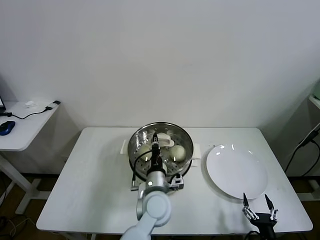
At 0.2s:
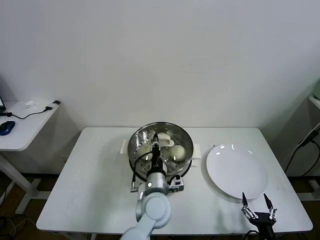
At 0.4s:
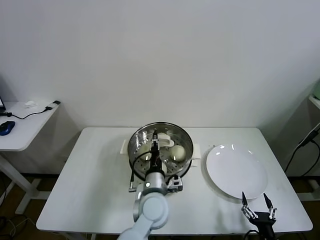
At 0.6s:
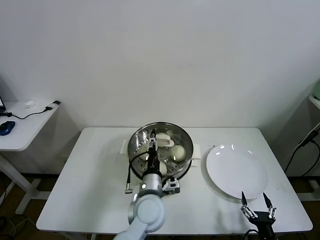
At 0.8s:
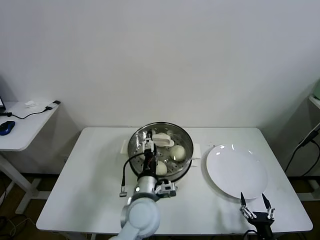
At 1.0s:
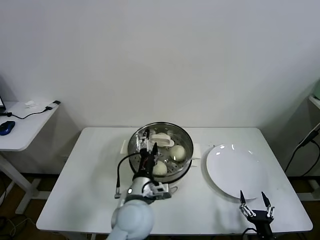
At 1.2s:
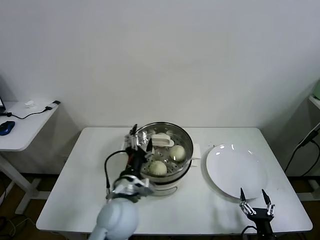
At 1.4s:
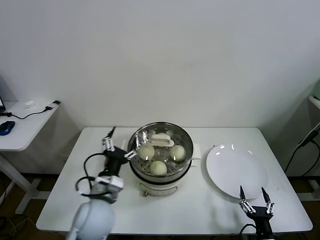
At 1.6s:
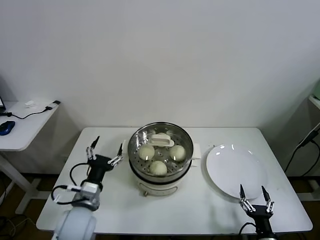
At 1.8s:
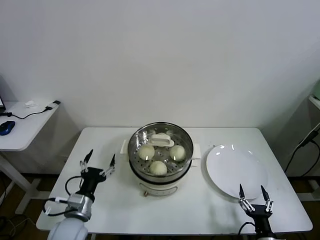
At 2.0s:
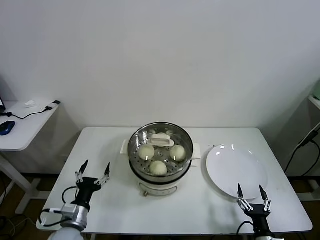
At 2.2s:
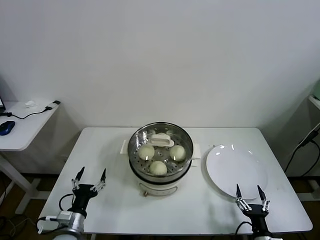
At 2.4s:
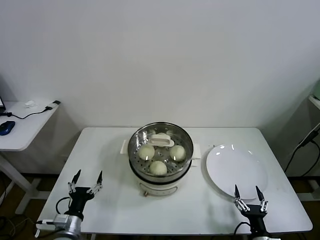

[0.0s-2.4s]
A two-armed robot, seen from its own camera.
Task of the whole recording: take steamed baozi put them in steamer.
0.0s to 1.2s: The left gripper shifts roughly 10 cm to the left and upward, and opens.
1.2s to 2.4s: The left gripper heads to the left and downward, covering some 25 cm.

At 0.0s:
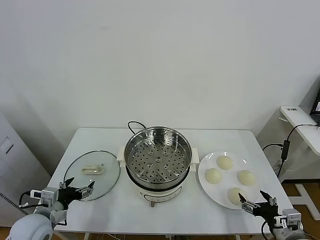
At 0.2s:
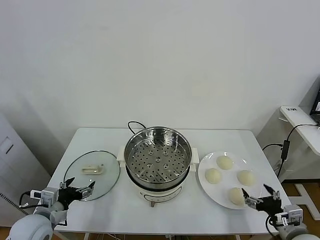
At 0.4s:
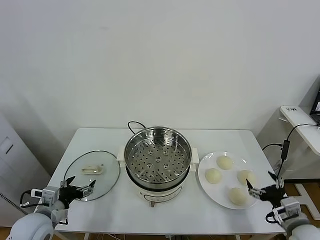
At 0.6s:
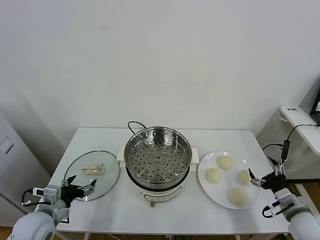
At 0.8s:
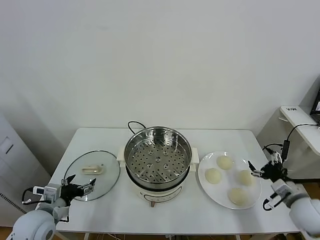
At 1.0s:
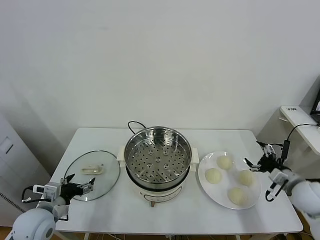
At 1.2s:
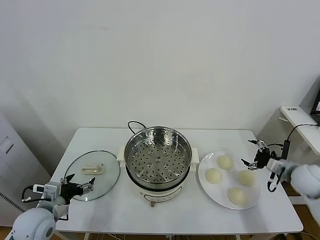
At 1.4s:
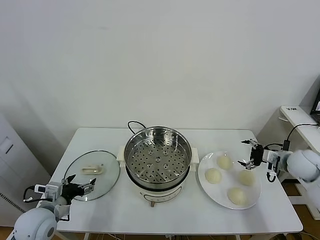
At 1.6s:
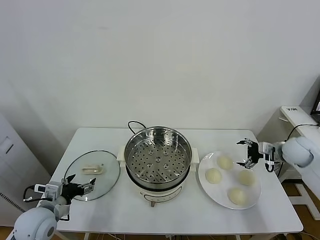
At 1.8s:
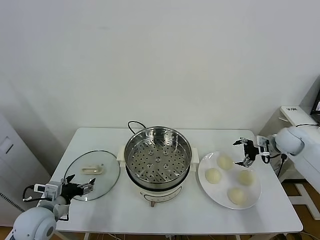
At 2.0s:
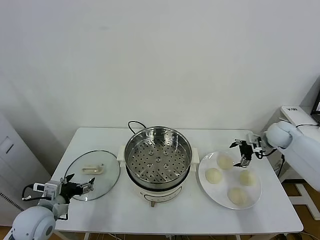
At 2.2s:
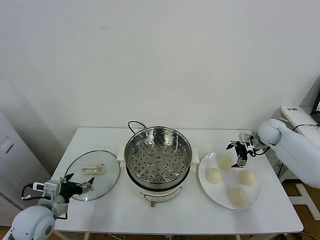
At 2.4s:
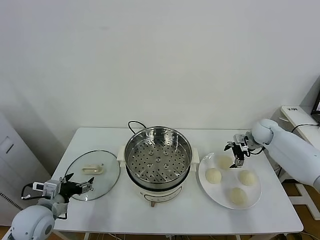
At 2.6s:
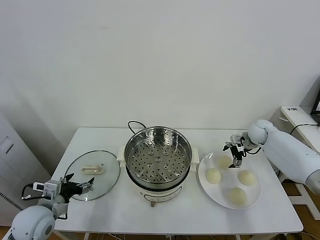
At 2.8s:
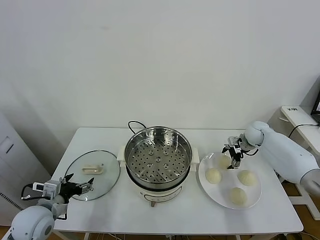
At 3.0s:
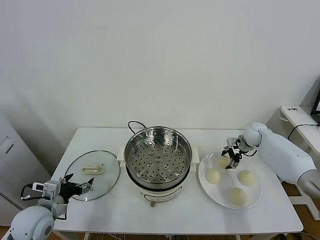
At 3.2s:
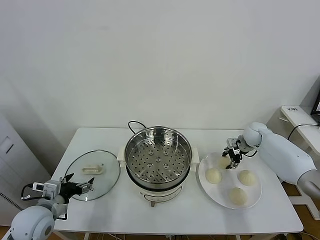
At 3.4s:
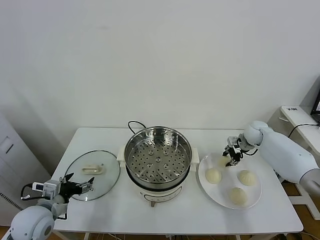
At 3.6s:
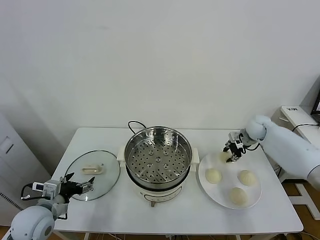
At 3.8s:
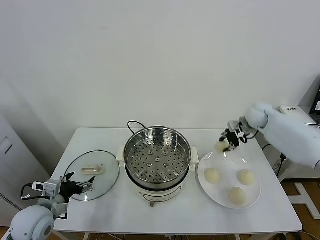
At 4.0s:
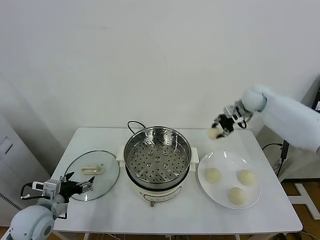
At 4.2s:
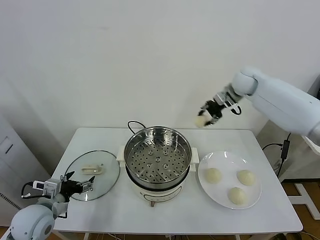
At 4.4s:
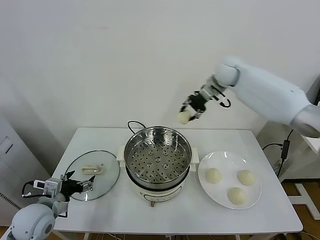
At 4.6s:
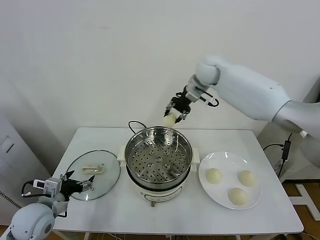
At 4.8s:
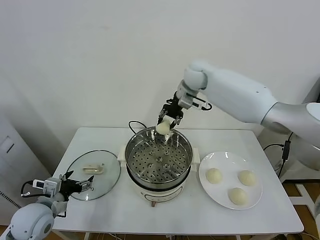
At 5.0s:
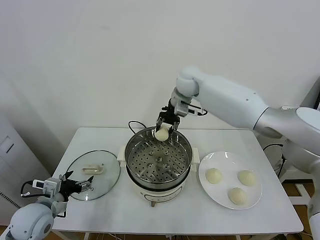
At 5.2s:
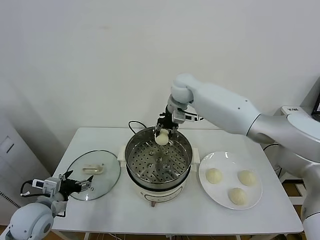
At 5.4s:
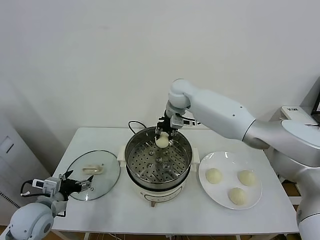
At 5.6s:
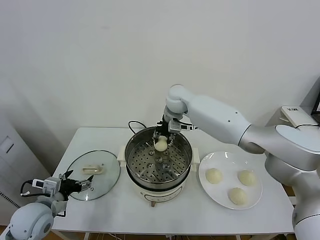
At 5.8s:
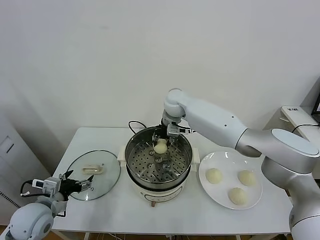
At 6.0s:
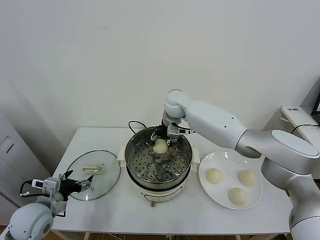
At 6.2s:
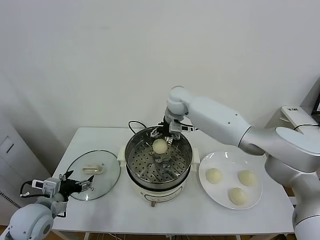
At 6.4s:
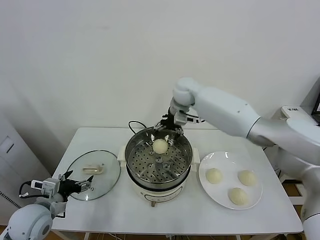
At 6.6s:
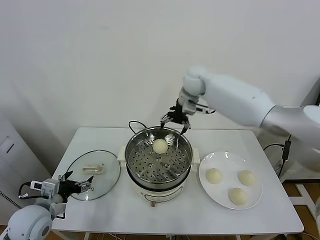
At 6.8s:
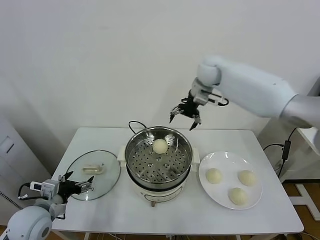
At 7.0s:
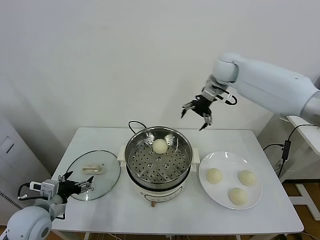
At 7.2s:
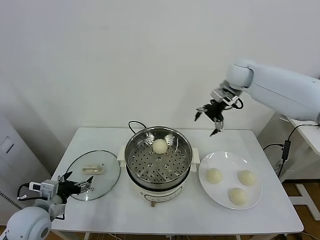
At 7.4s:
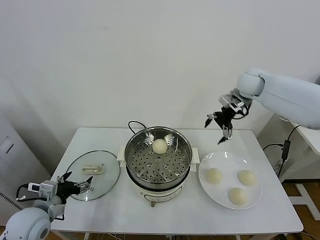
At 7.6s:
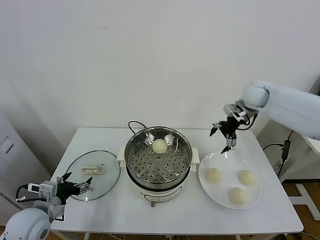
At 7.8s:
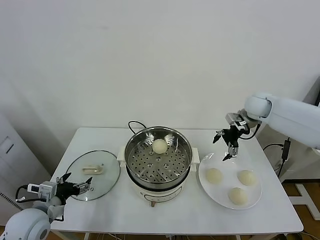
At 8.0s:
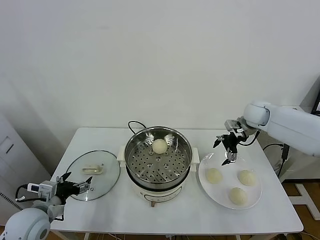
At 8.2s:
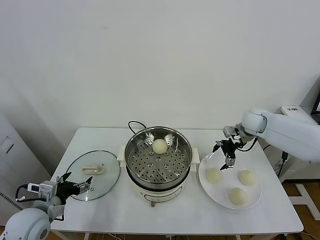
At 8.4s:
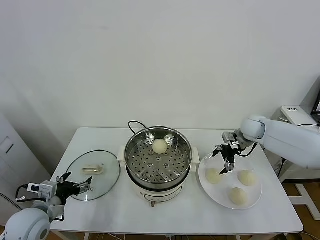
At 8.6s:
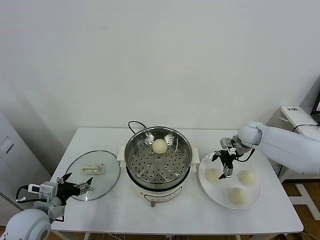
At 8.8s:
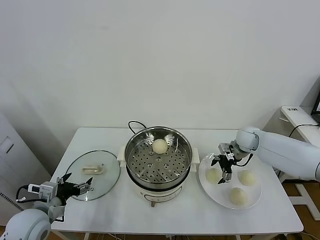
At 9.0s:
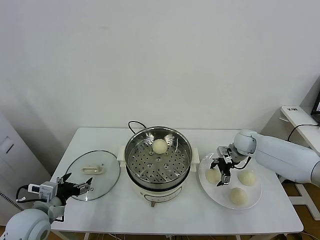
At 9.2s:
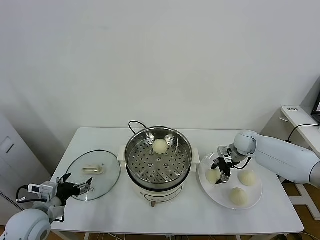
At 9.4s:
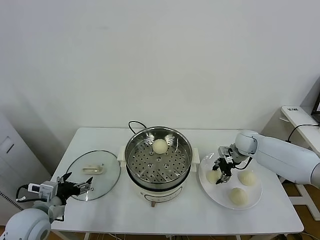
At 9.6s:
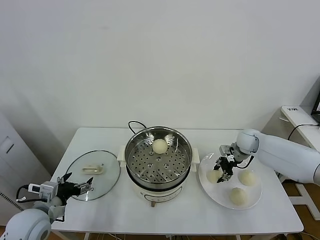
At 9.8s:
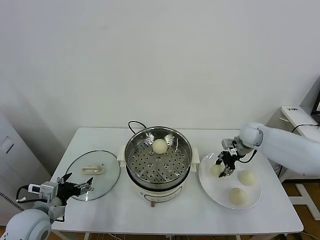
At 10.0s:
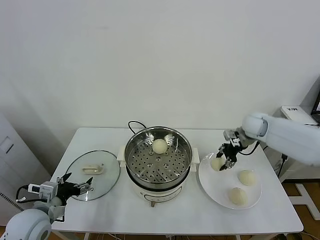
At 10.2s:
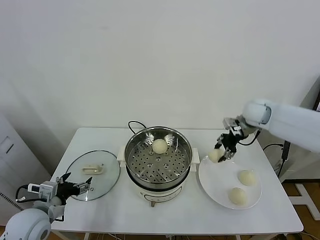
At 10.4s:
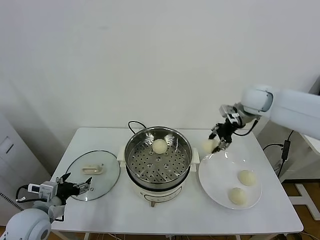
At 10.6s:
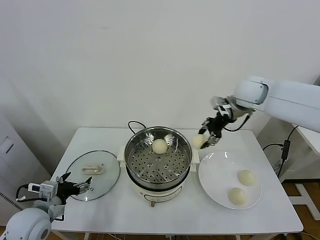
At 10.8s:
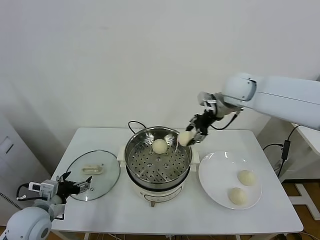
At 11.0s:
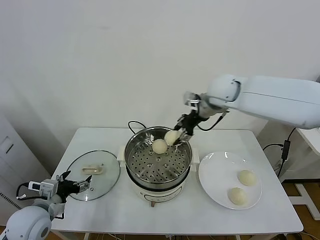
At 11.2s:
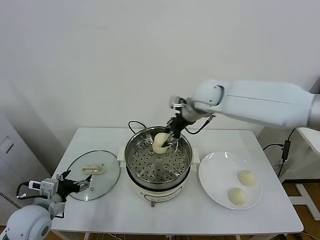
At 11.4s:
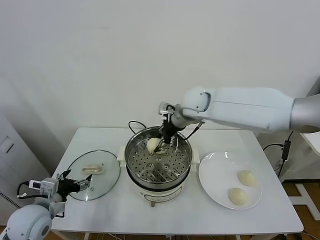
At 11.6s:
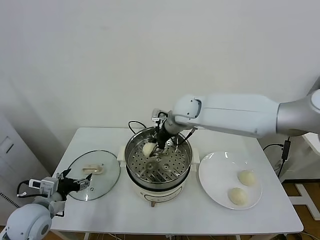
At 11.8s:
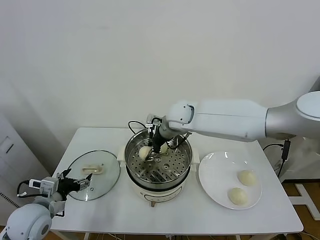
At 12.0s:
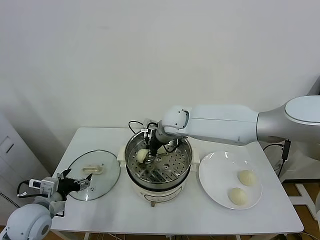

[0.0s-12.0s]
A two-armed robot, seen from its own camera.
Task of the whole recording: take steamed baozi put them in steamer.
Step, 0.0s to 3.0s: Grasp the baozi in the plate with right gripper.
Step, 3.2s to 6.0s: Place the baozi on the steamer with right gripper.
Step, 6.4s to 9.2s: Grasp the baozi in the plate with right gripper.
1.6s to 3.0s: The right gripper travels forward, to the left and downward by about 15 cm, and closes its fingers.
3.0s to 4.4s: The right gripper heads upward and to the left, covering about 35 cm.
4.4s to 6.0s: The right gripper heads to the left and downward, covering approximately 15 cm, and opens its fingers.
6.0s to 7.6s: The right gripper moves to the right, roughly 30 cm.
7.6s to 9.0s: The right gripper travels downward by roughly 20 cm.
9.0s to 10.4s: The right gripper is displaced upward by roughly 20 cm, and closes its fingers.
10.4s to 12.0s: The right gripper shifts some 25 cm to the left.

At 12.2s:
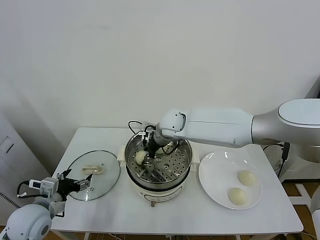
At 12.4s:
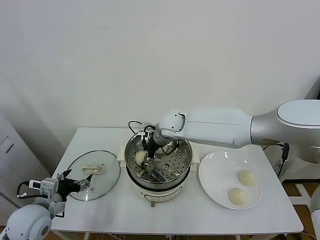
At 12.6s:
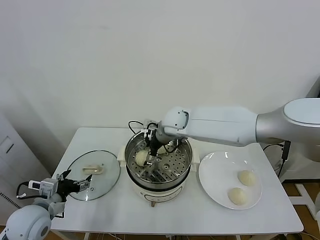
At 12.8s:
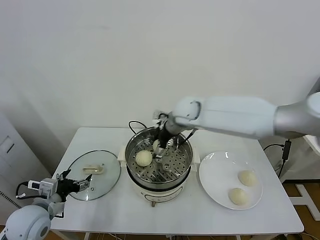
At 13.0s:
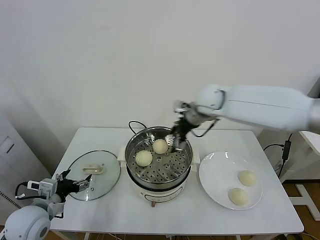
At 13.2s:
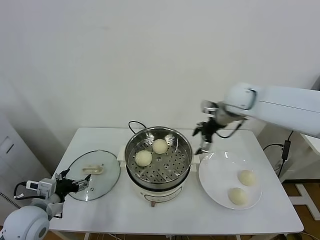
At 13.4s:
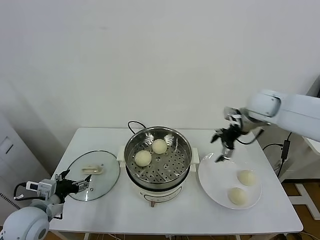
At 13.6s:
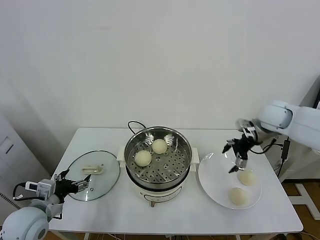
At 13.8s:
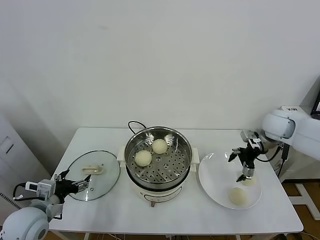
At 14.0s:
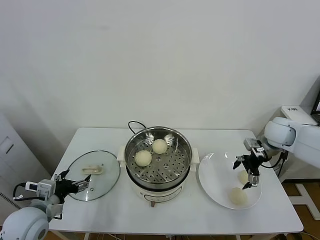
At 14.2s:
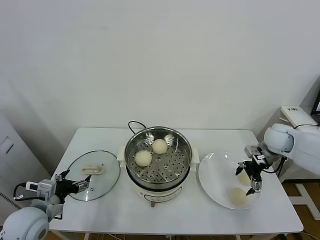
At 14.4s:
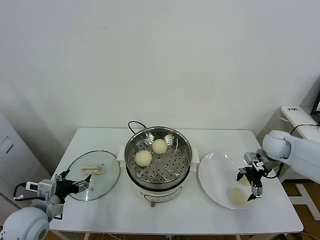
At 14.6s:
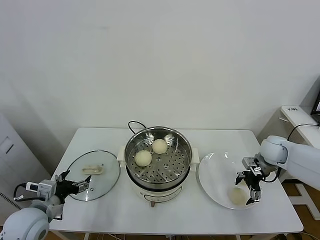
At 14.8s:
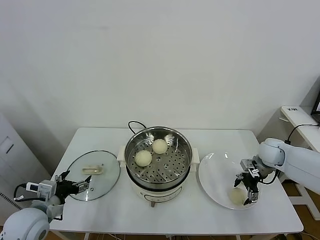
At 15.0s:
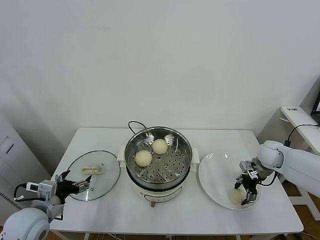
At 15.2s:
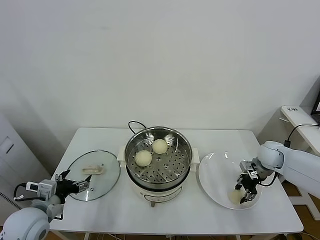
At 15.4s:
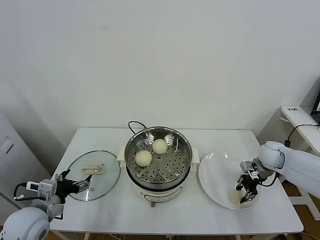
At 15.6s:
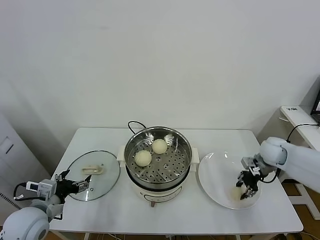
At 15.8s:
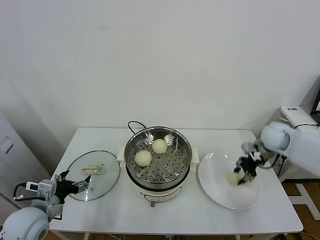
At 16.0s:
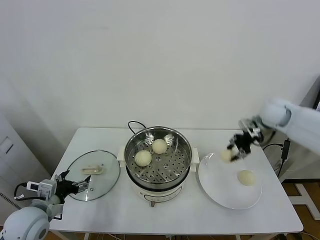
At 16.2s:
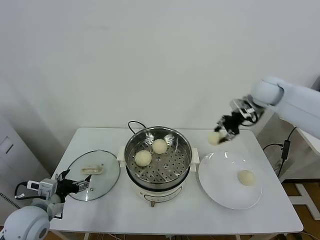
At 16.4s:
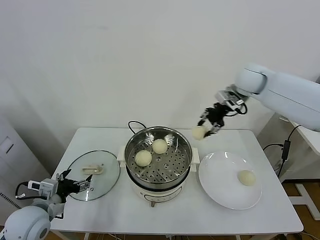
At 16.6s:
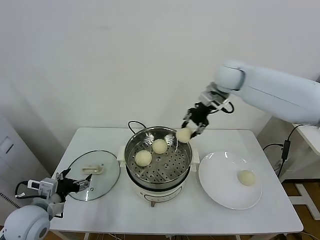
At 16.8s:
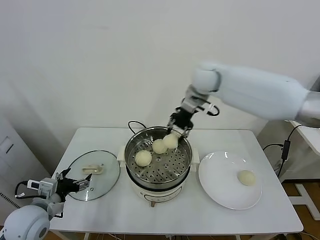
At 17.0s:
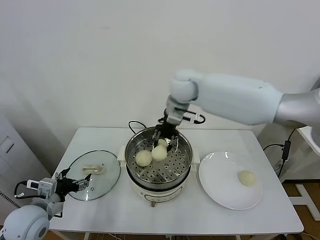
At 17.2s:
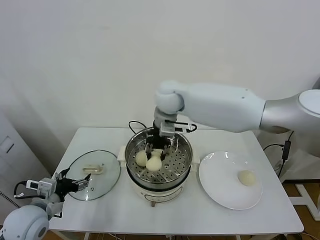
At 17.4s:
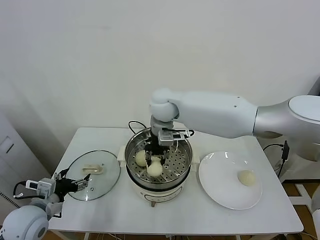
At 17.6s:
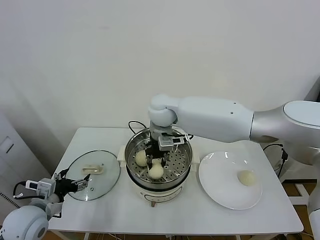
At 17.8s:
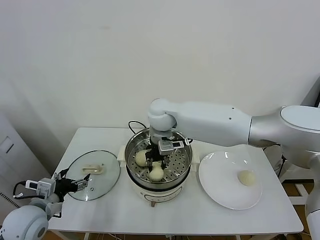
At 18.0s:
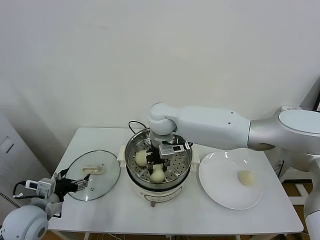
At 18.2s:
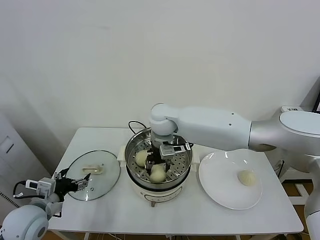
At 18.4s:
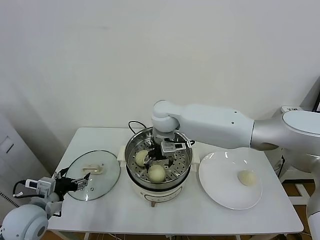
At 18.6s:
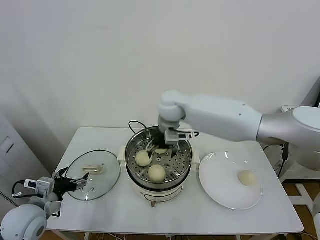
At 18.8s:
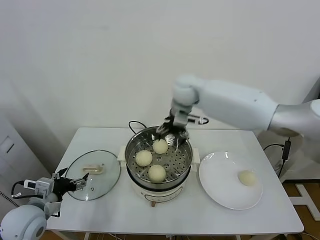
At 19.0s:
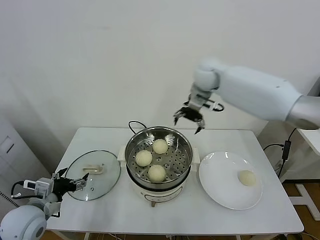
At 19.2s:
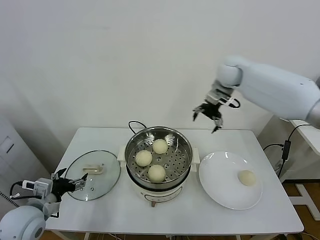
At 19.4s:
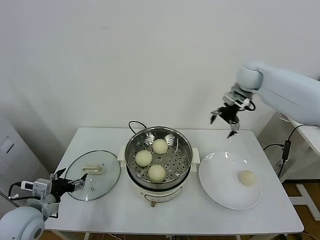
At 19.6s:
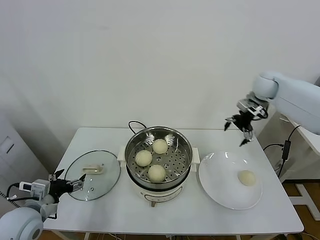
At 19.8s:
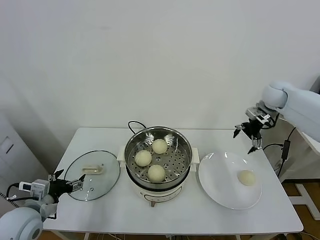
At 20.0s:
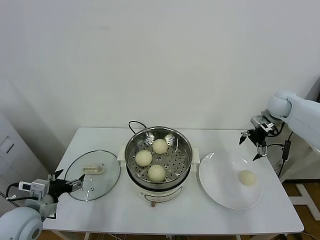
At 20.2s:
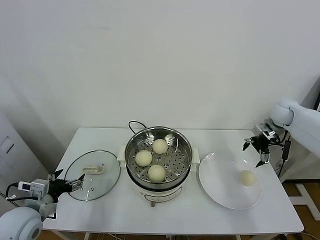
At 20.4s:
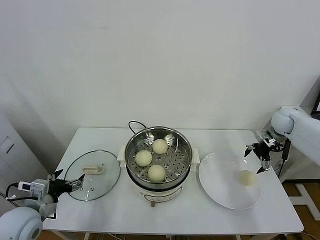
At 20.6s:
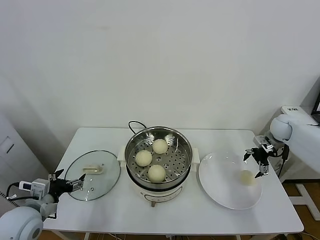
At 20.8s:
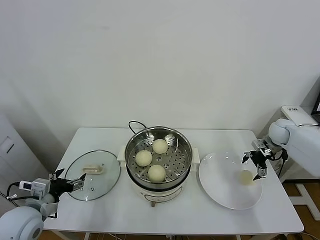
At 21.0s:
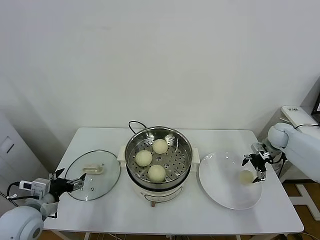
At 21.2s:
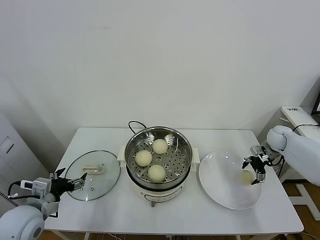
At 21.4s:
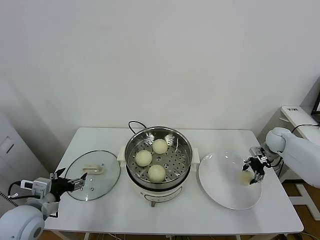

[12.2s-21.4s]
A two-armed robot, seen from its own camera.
Task of the whole recording: take steamed baozi put them in steamer.
Step, 12.8s to 15.0s: Grasp the baozi in the plate with right gripper.
Step, 15.2s to 18.4s: Place the baozi on the steamer with right gripper.
Step, 18.6s to 21.4s: Grasp the baozi in the plate with right gripper.
12.2s to 13.8s: The right gripper goes some 35 cm to the right, and opens up.
13.8s to 15.2s: The right gripper travels downward by about 10 cm, and closes.
15.2s to 16.8s: The right gripper moves to the left and upward, about 40 cm.
16.8s to 18.4s: The right gripper goes some 15 cm to the left, downward and backward, and opens.
18.4s to 19.8s: The right gripper is displaced to the right by roughly 40 cm.
19.8s to 21.4s: The right gripper shifts roughly 20 cm downward, and closes.
